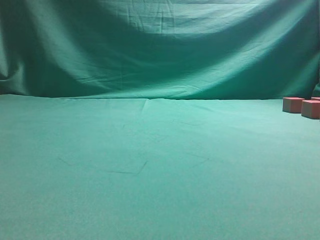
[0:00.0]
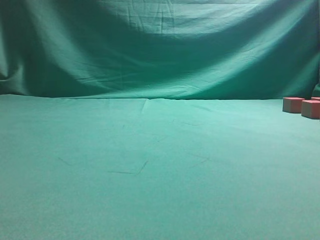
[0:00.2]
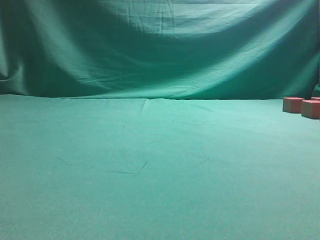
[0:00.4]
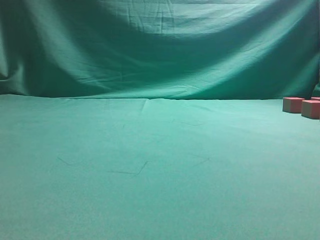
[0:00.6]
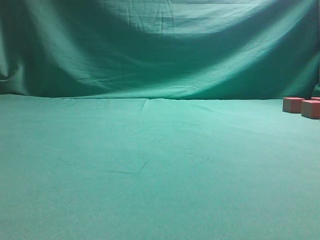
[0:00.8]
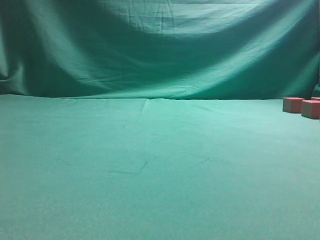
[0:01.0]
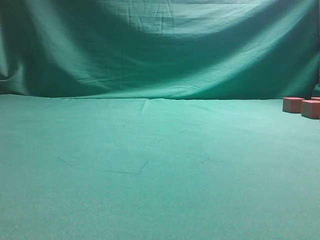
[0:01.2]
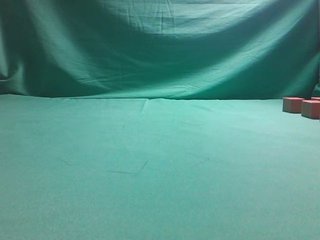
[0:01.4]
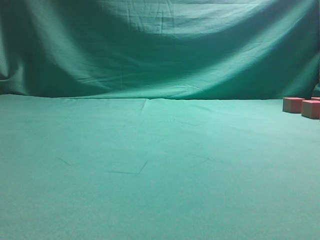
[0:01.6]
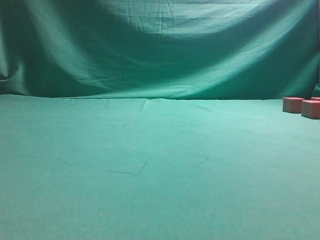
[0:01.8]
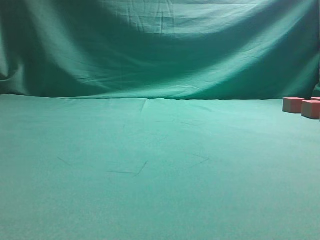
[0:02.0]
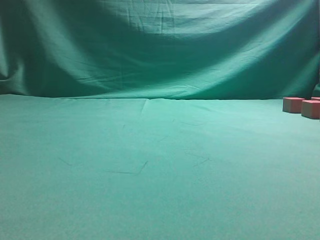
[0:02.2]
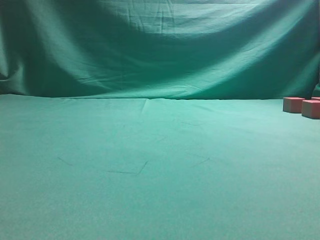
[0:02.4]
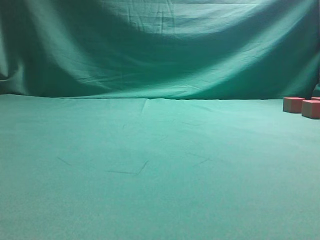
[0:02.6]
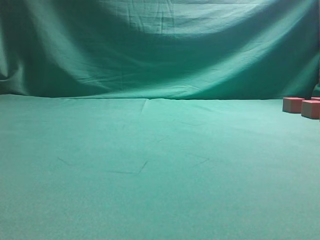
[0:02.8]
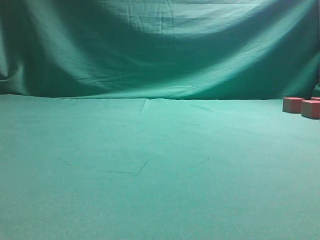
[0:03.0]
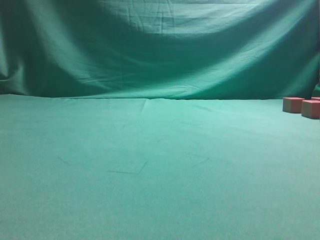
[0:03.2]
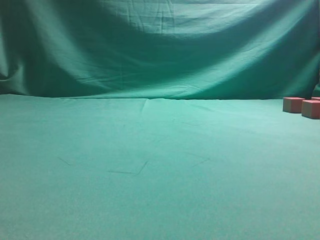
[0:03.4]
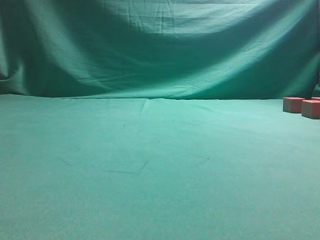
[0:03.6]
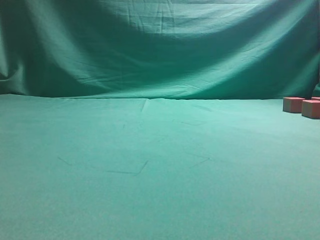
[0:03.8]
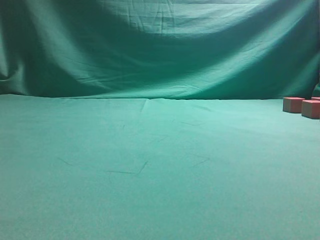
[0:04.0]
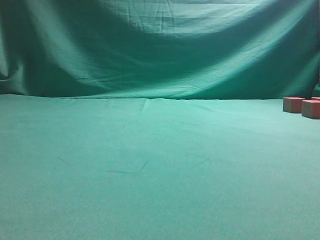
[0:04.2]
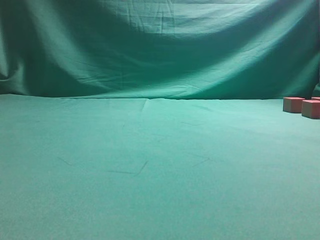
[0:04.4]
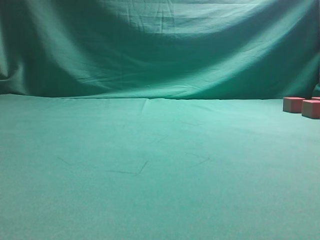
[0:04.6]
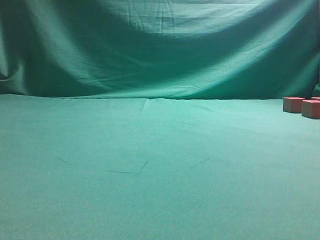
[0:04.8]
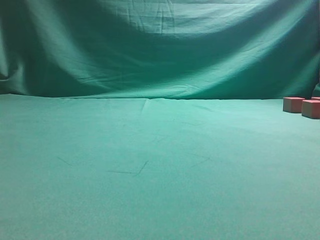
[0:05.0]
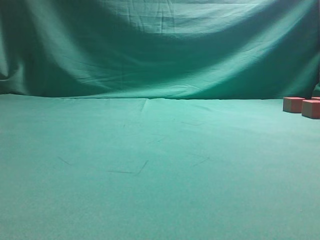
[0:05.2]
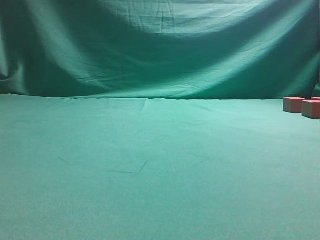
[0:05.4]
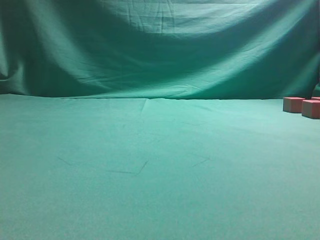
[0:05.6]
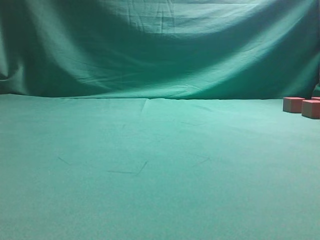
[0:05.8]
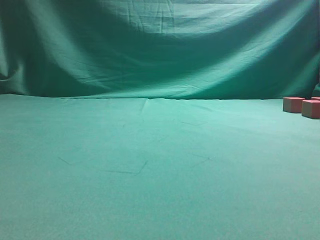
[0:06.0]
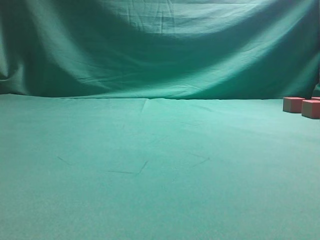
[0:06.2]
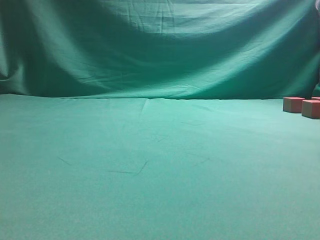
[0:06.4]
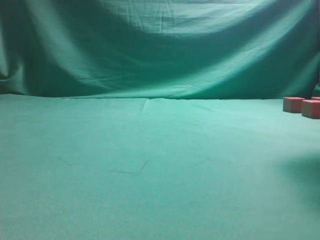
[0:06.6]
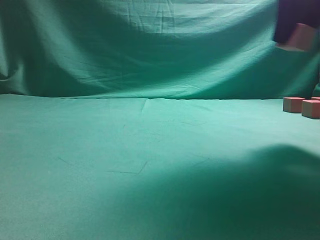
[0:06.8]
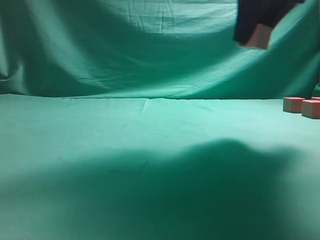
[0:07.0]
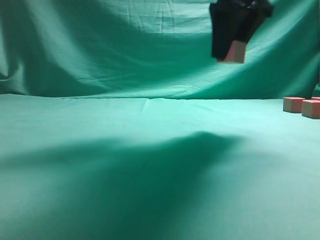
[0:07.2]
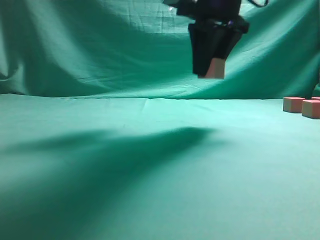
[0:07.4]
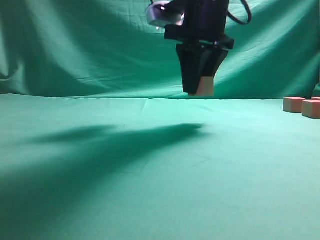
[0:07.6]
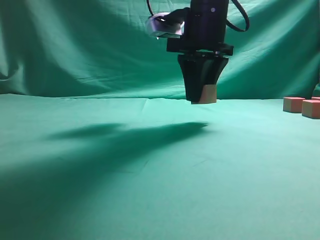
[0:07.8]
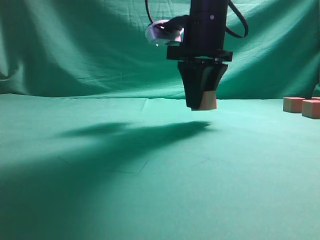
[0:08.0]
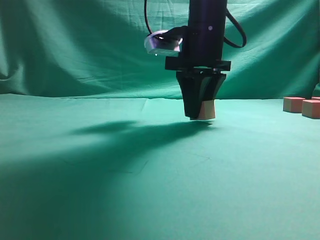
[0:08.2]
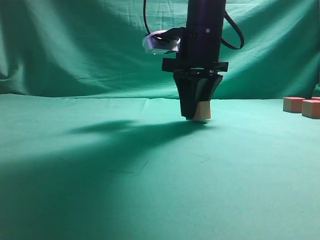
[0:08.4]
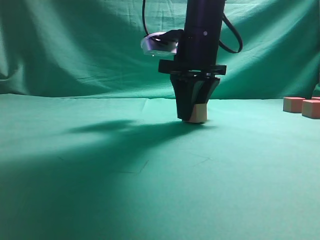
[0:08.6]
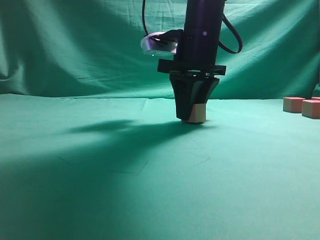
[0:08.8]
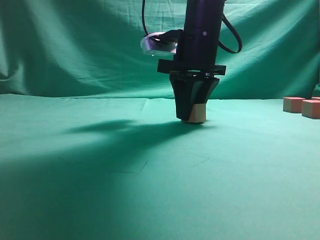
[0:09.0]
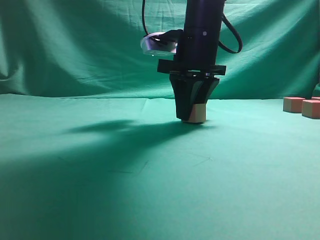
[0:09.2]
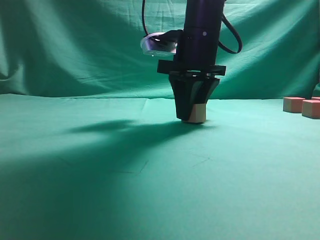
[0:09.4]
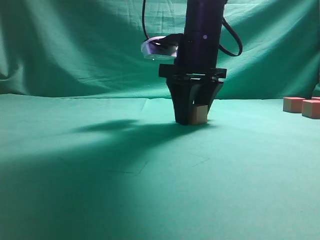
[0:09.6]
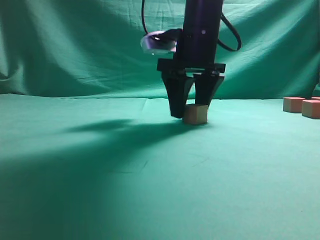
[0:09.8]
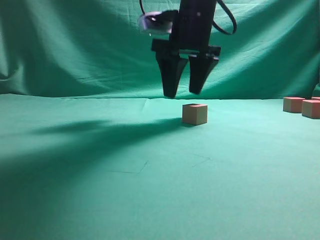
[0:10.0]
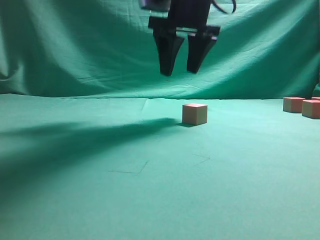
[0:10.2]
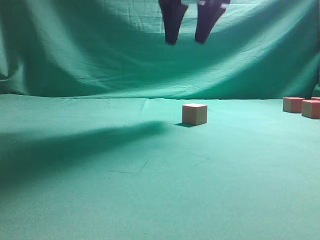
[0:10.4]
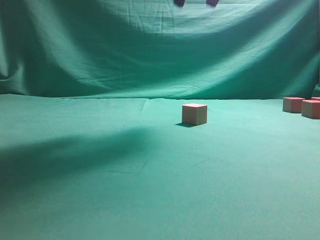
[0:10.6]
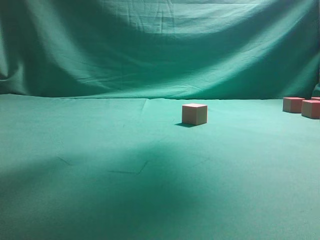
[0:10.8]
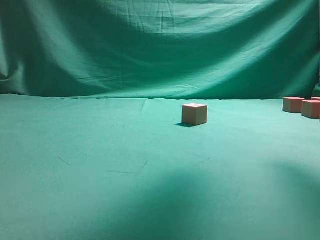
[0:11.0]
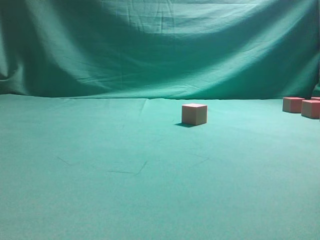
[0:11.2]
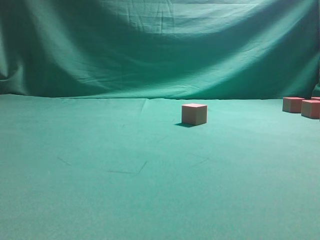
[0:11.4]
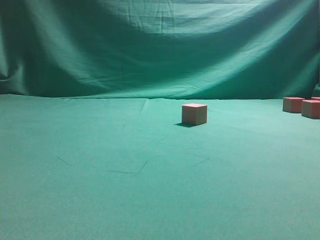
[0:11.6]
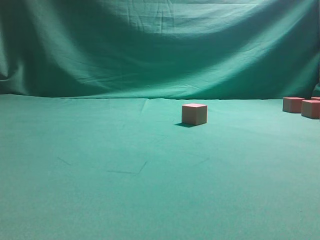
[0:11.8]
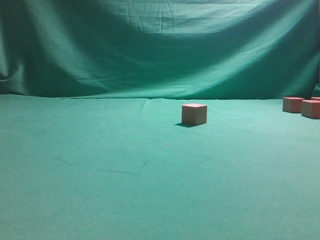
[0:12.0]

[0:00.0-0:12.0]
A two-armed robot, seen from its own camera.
Task of the whole recording: pick up the multiple cubes in two columns one by one and place them in another position on the table.
Step, 0:06.6 to 0:10.2: Place the block at the correct position to assemble the letter S.
0:06.0 to 0:07.6: The right gripper moves to the left and forward, about 25 cm.
0:07.6 to 0:09.0: The grippers make only small movements.
0:09.0 to 0:10.4: The right gripper moves upward, about 10 cm, and opens its fingers.
0:10.4 to 0:12.0: The right gripper travels to the right and backward by about 30 cm.

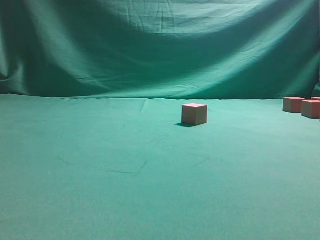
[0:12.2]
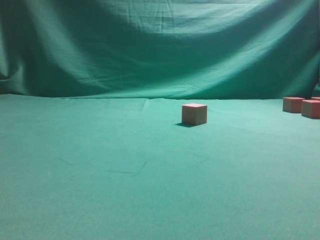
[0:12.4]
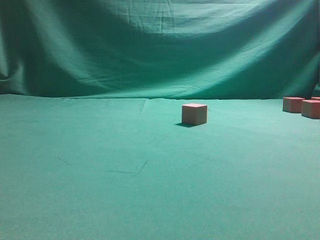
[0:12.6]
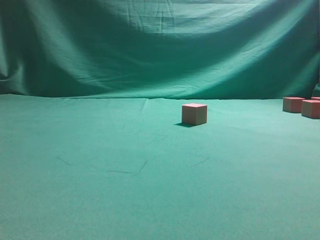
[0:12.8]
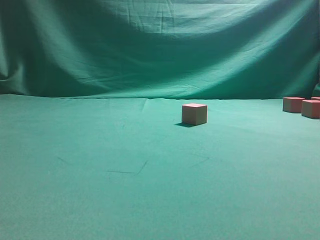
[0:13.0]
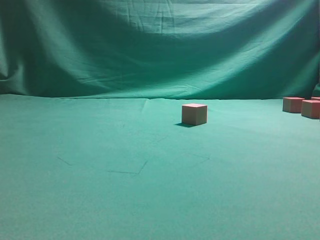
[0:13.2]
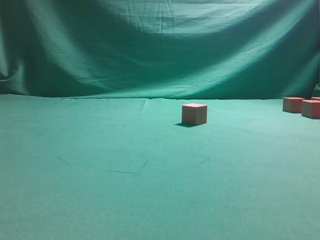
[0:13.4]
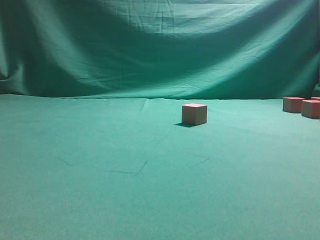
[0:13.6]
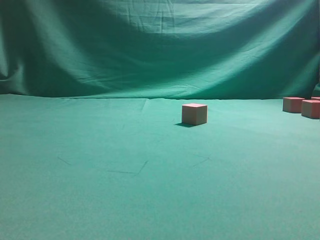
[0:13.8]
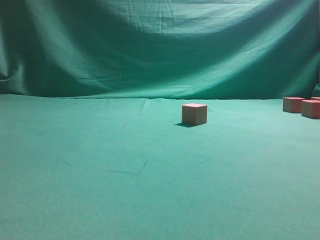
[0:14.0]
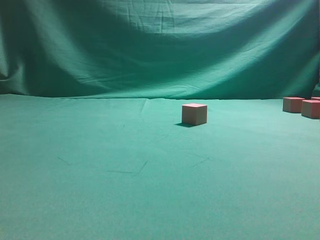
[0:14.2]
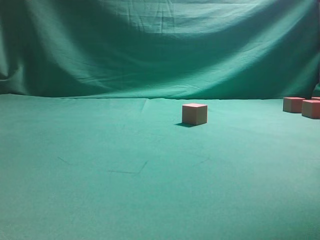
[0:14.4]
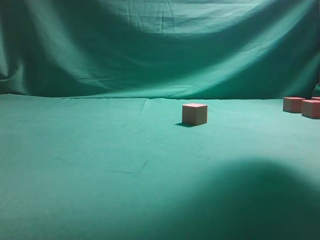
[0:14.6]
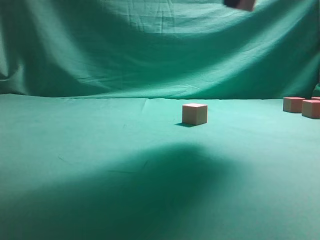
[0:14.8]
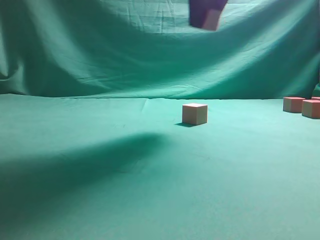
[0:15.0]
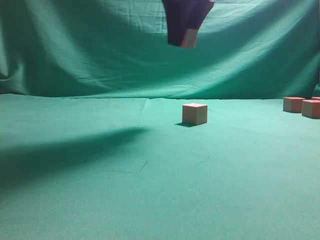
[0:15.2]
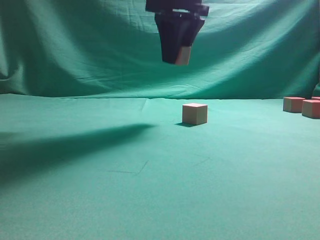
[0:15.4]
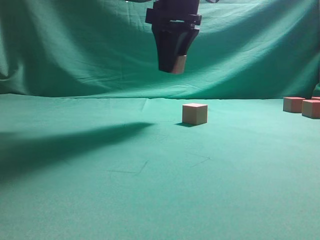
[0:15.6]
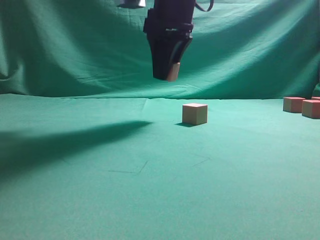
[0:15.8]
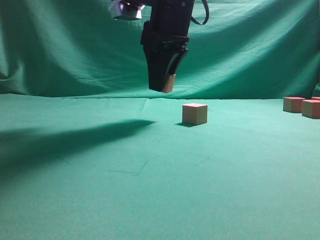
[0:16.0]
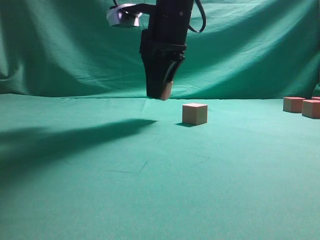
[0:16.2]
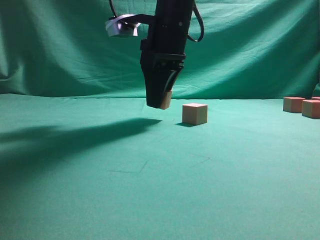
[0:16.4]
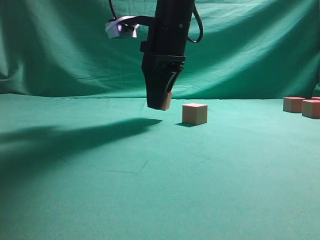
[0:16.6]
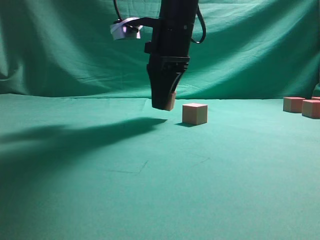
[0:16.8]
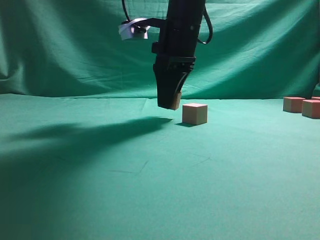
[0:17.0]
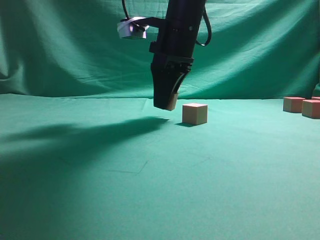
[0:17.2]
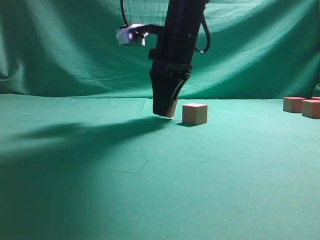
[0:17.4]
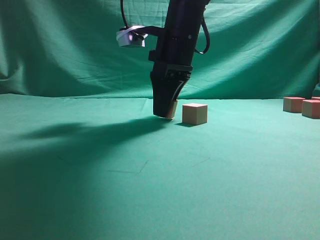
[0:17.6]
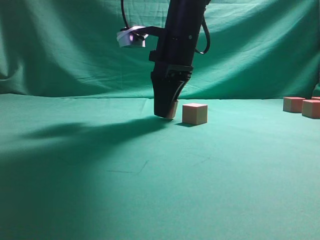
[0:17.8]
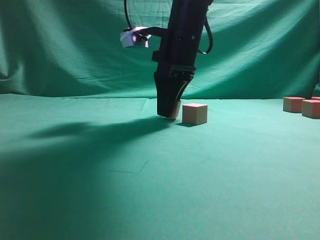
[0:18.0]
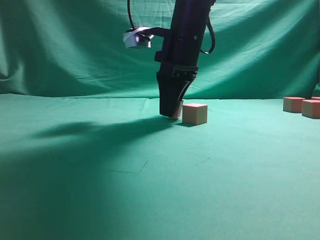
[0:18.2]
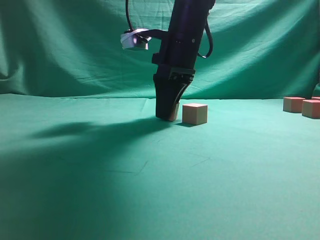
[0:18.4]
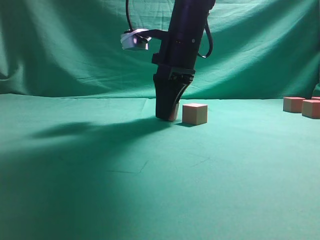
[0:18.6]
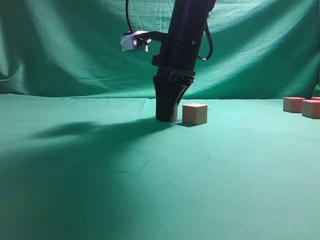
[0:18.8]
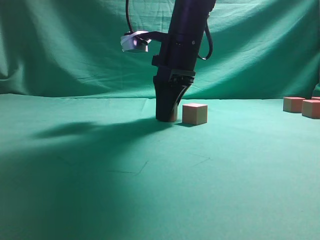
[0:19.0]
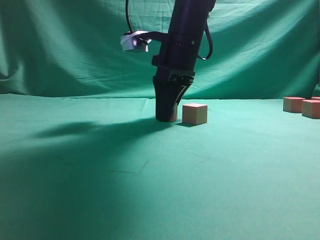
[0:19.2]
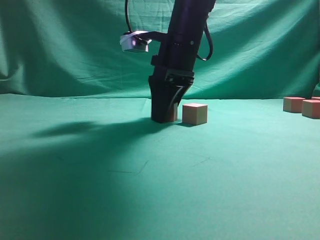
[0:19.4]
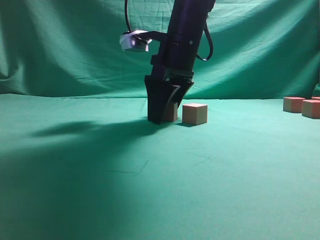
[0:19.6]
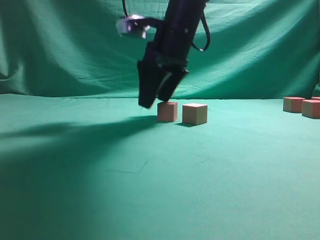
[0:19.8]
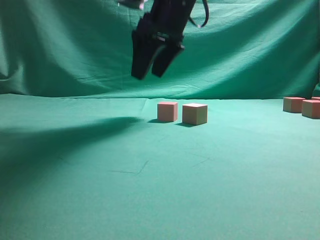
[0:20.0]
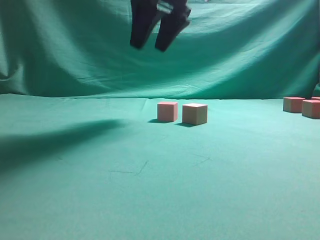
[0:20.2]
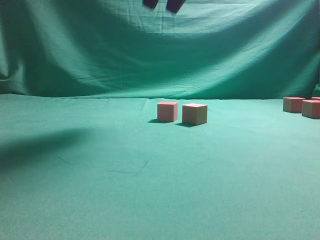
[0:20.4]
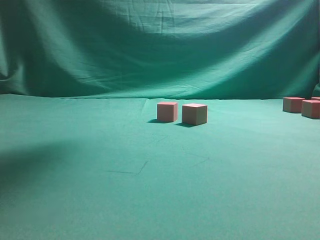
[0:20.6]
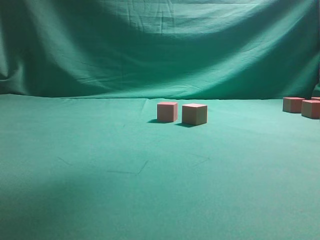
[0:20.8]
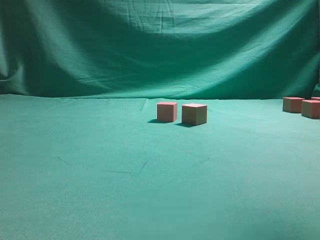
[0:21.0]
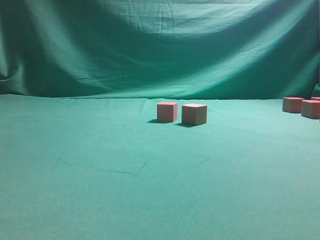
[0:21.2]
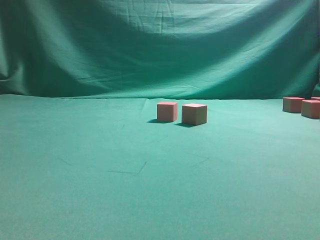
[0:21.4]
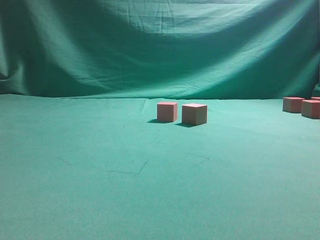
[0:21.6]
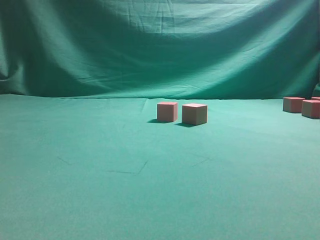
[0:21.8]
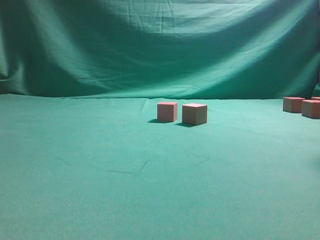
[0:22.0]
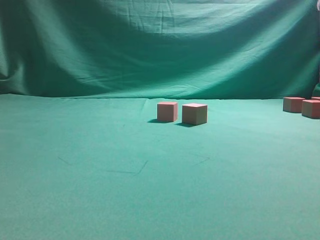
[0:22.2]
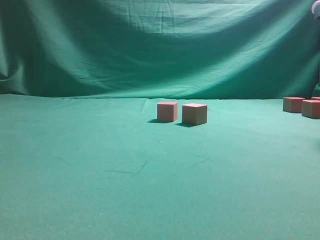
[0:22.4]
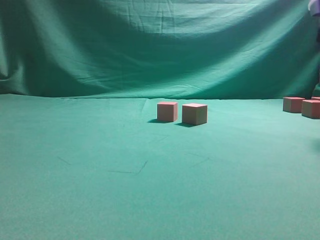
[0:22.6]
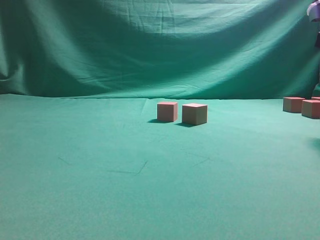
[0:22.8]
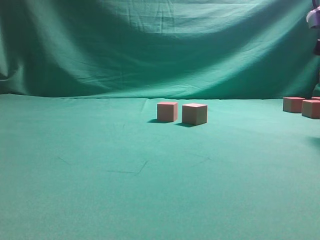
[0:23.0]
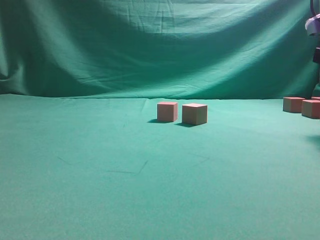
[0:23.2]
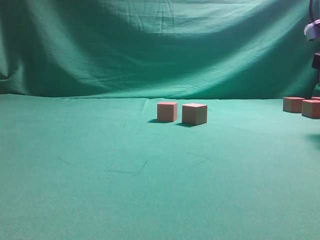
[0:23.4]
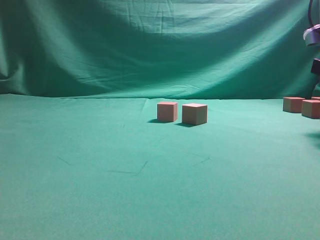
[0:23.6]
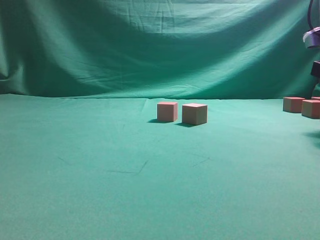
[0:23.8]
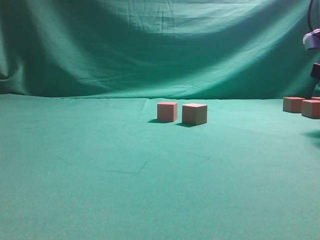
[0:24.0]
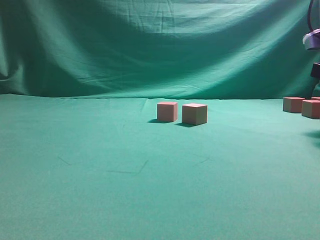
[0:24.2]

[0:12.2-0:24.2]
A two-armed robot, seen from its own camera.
Task of the whole recording: pick up the multiple cubes in two columns one by one and place them in another position on the table.
Step, 0:14.4 to 0:20.0: Place the block at the correct position to assemble the letter S.
0:13.8 to 0:15.2: The right gripper moves to the left and upward, roughly 30 cm.
0:15.2 to 0:16.6: The right gripper moves downward, about 10 cm.
0:18.2 to 0:19.8: The right gripper opens.
0:19.8 to 0:21.2: The right gripper heads to the right, upward and backward, covering approximately 35 cm.
